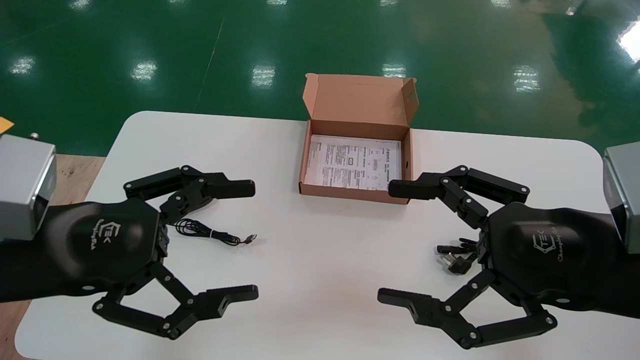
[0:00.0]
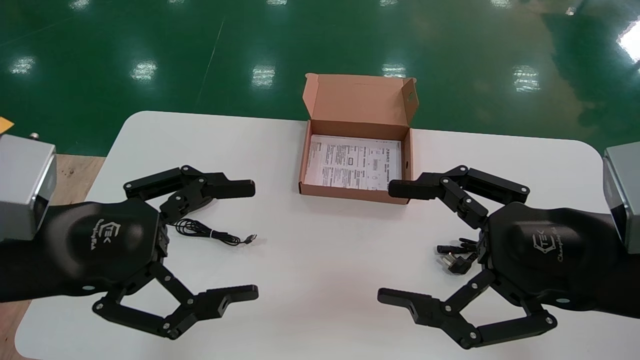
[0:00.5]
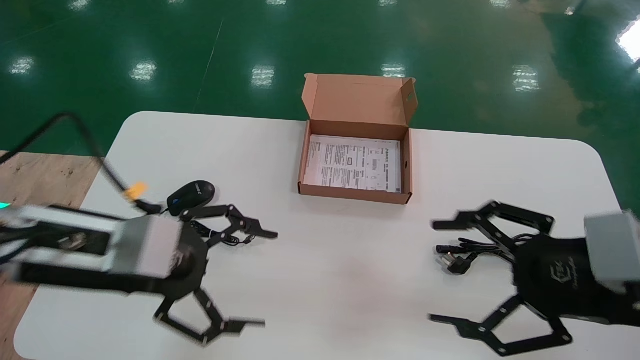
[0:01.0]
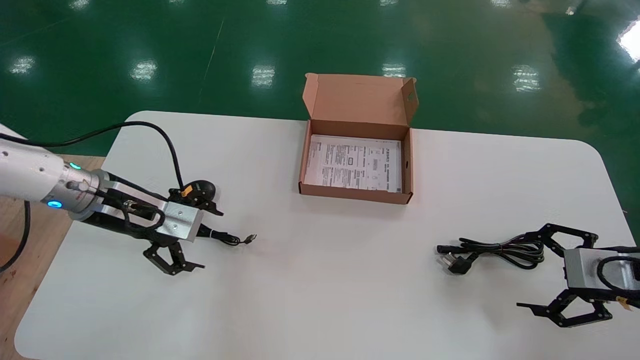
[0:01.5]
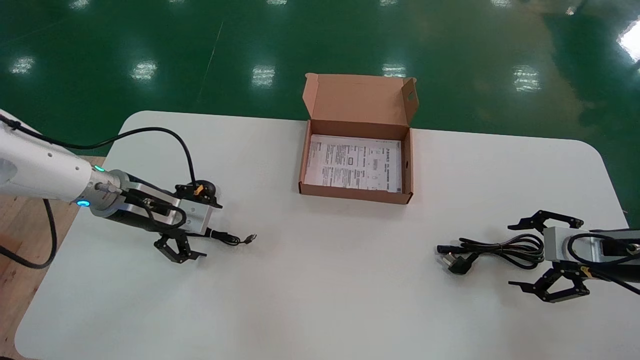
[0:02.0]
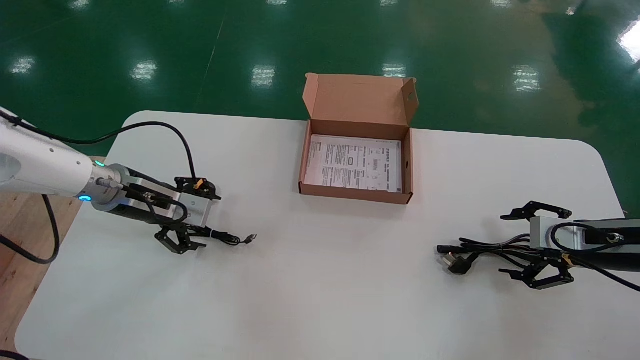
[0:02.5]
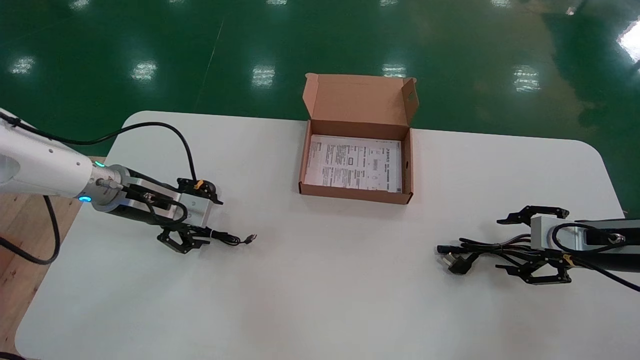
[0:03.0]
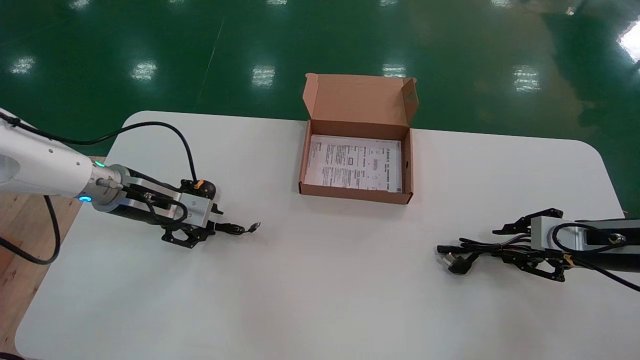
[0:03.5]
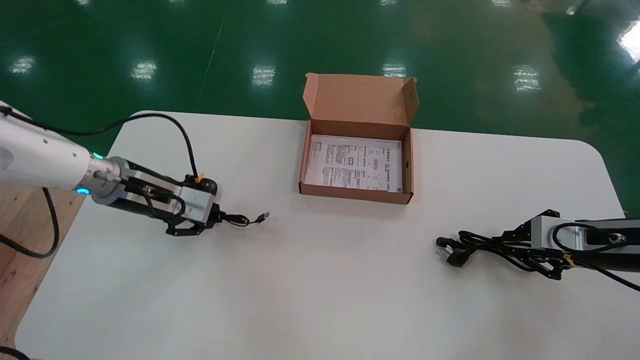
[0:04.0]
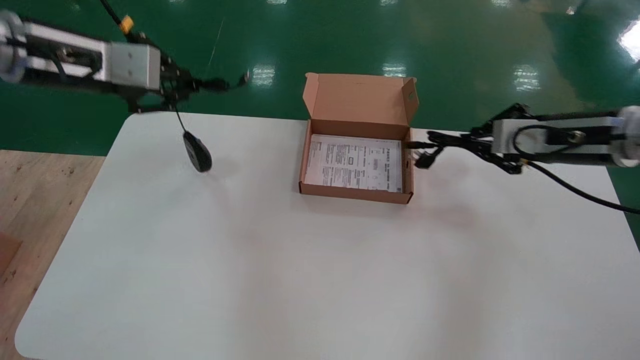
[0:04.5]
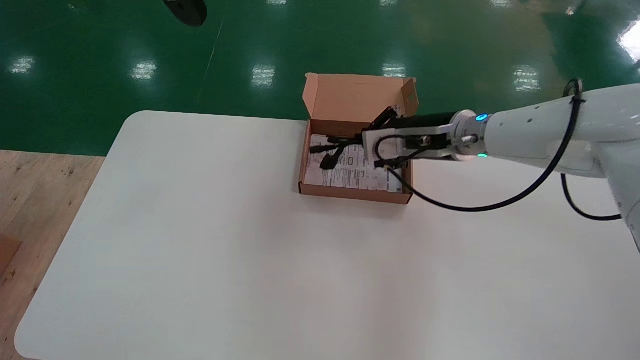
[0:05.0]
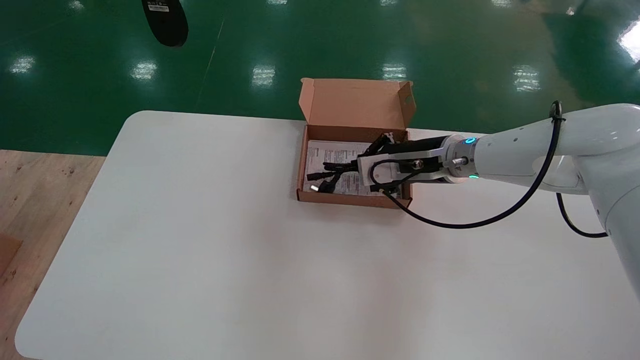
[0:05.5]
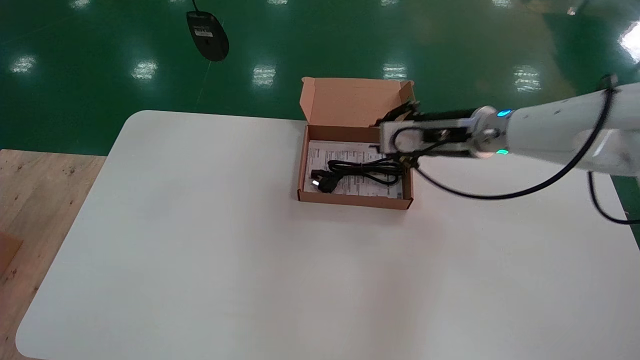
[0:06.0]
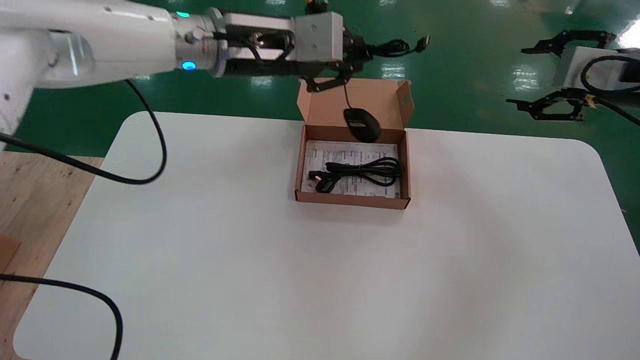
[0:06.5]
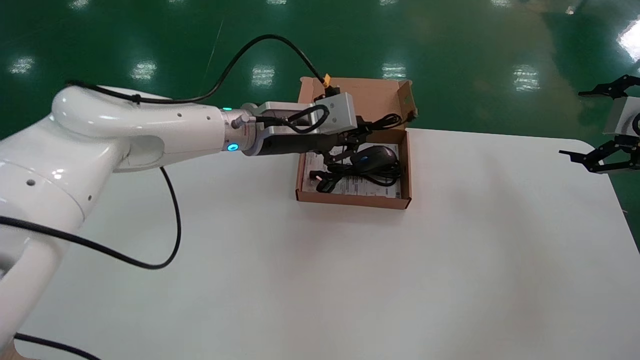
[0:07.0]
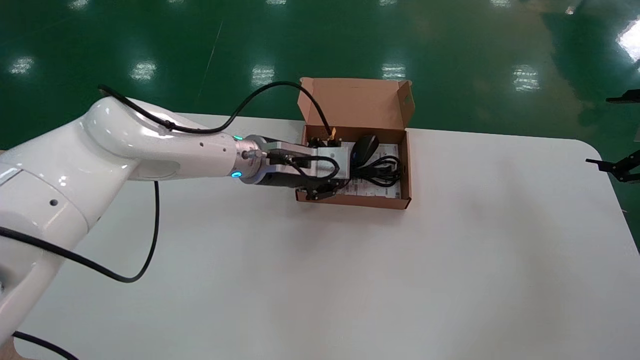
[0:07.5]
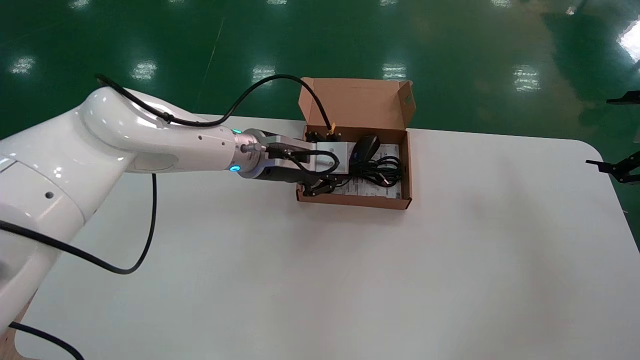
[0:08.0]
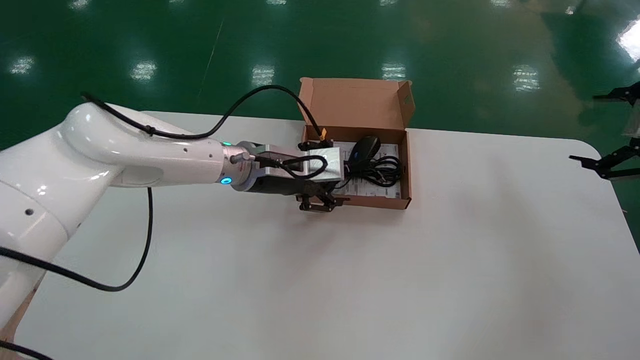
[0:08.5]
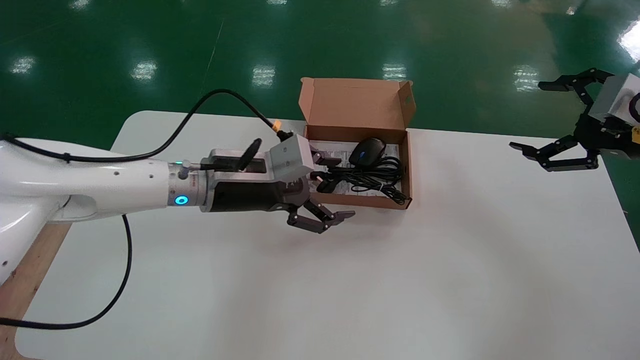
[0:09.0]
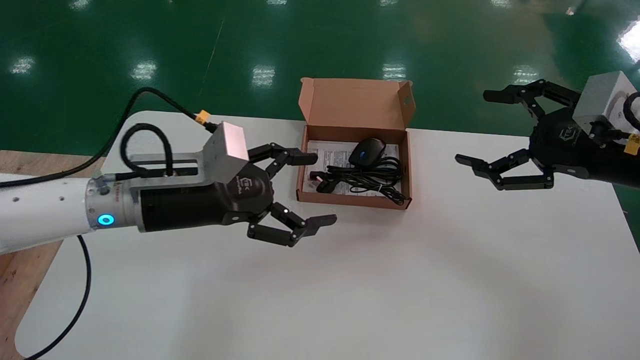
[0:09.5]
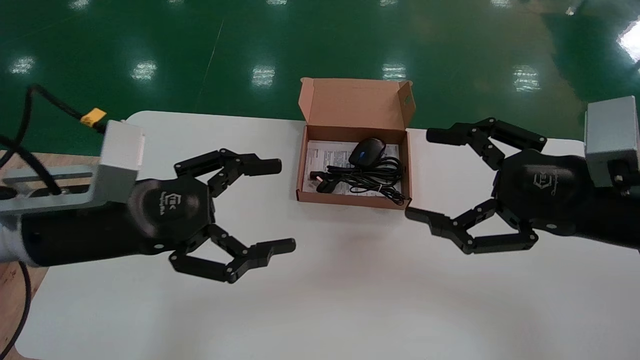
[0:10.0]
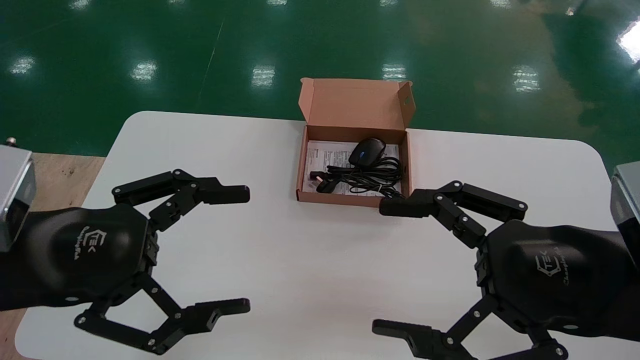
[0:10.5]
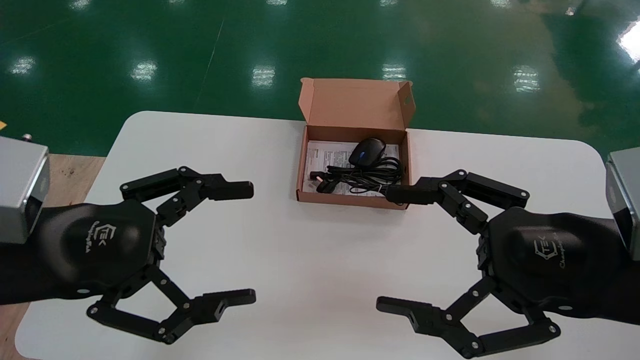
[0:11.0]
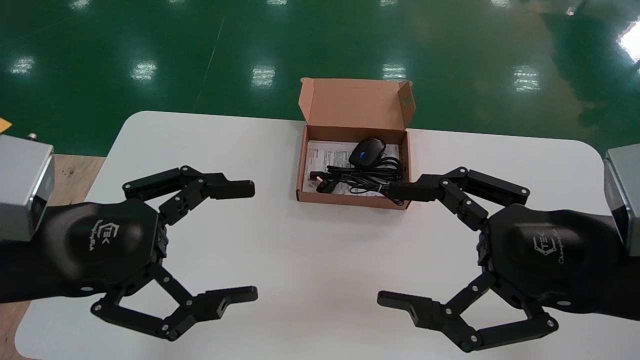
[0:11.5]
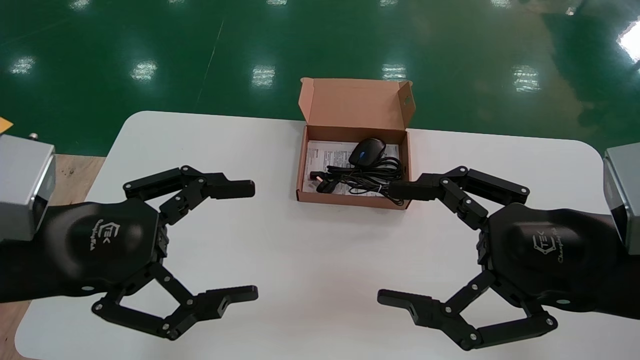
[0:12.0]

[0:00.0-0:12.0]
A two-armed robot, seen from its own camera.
Step, 1.5 to 4.0 s: Simultaneously pick up the mouse and power cord from the accessory packaging area.
Step, 4.5 to 8.5 s: Place the mouse and power cord into the box.
0.0 to 2.0 s: The right gripper moves to the right, forward and downward, about 25 cm. Meanwhile the left gripper moves forward, roughly 20 cm.
2.0 to 4.0 s: The right gripper closes its fingers, while the left gripper closes up.
4.0 to 6.0 s: The right gripper goes about 25 cm to the left, upward and forward. The left gripper moves upward, about 25 cm.
6.0 to 8.0 s: The left gripper moves downward, to the right and forward, about 35 cm; the right gripper goes about 30 cm to the right and backward, and opens its fingers.
8.0 to 10.0 s: The left gripper is displaced backward and to the left by about 25 cm, and opens. The right gripper shifts approximately 20 cm to the left and backward.
10.0 to 12.0 s: The grippers both shift backward by roughly 5 cm.

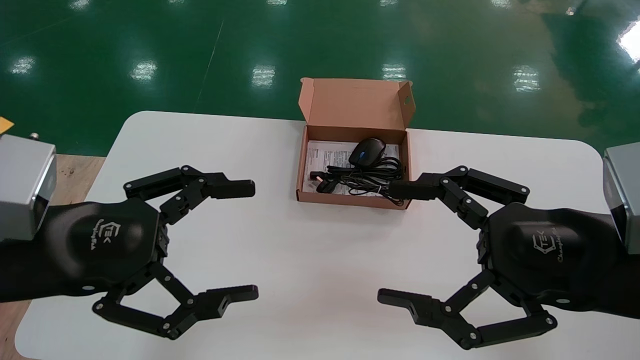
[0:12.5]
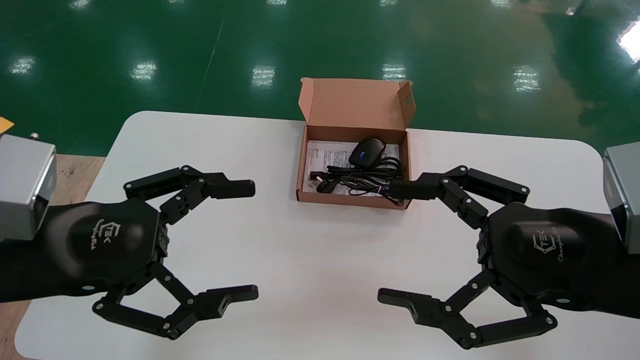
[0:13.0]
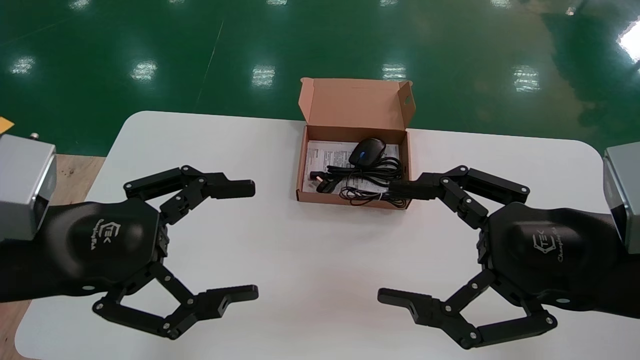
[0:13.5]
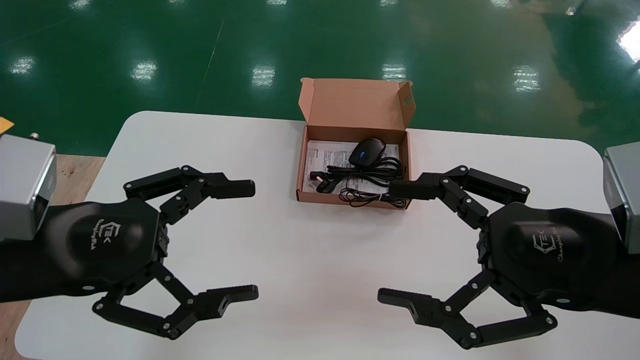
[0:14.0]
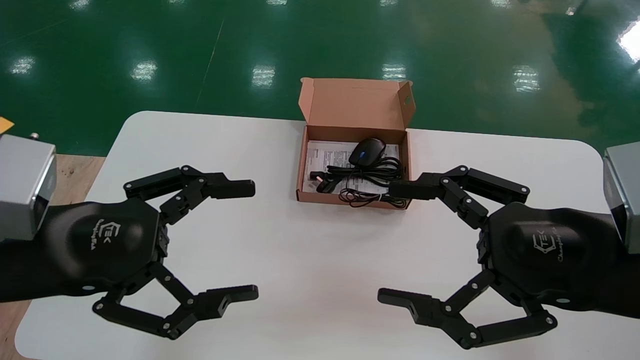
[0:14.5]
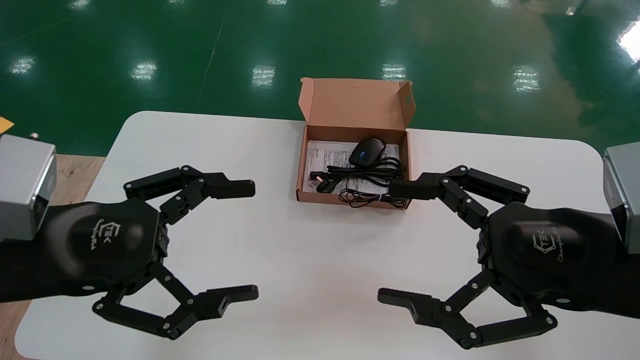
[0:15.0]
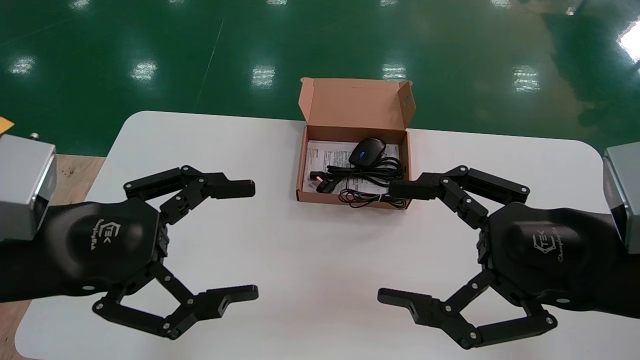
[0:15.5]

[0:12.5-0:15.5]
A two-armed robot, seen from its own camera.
12.5 to 15.5 s: Both grippers stay put.

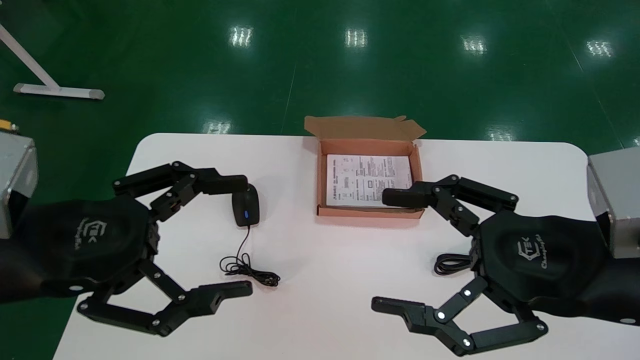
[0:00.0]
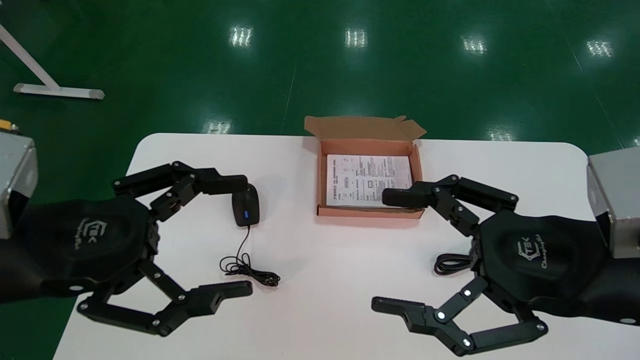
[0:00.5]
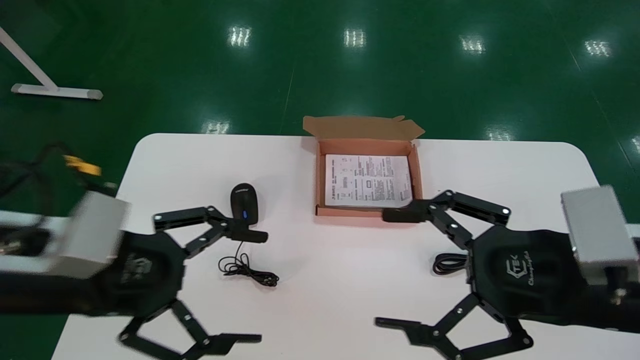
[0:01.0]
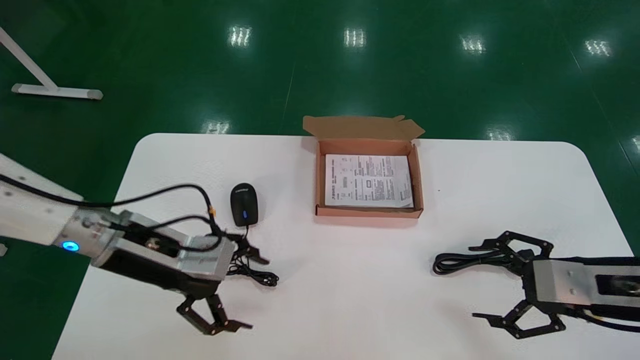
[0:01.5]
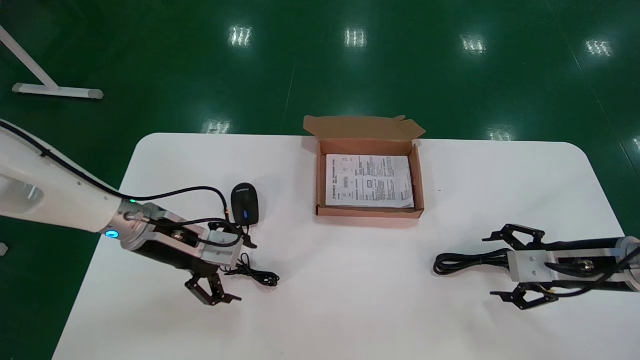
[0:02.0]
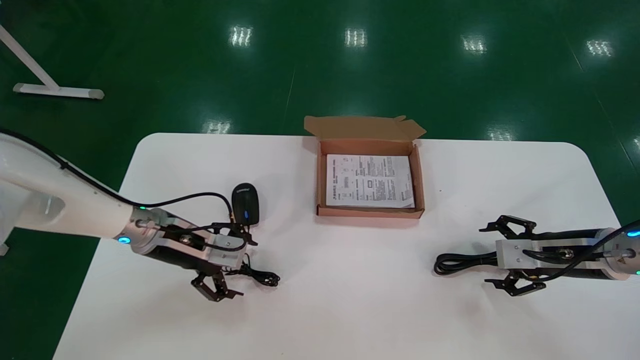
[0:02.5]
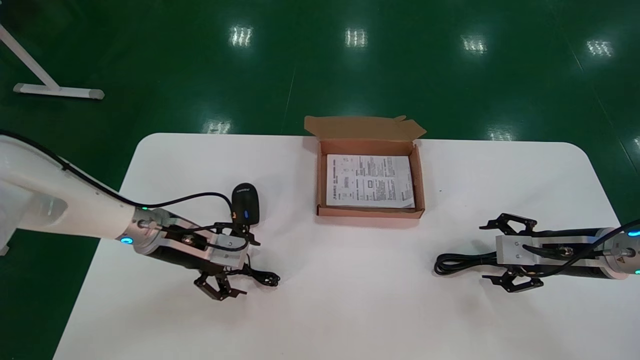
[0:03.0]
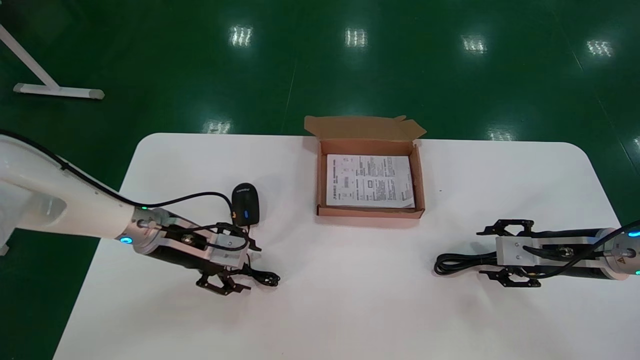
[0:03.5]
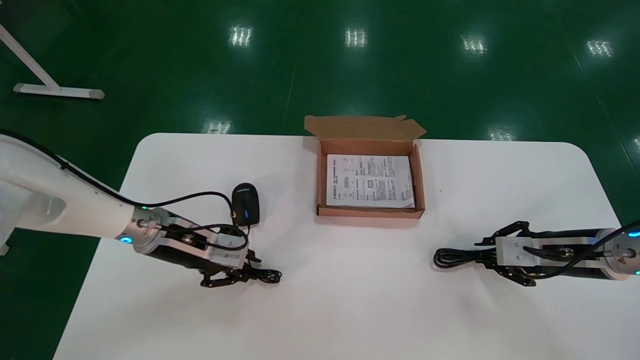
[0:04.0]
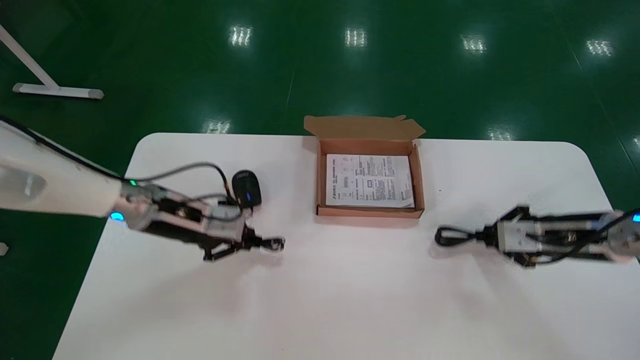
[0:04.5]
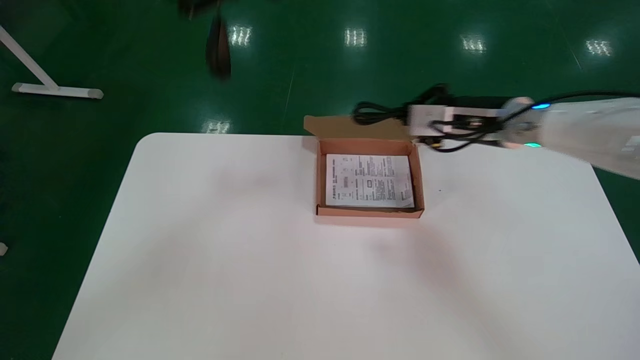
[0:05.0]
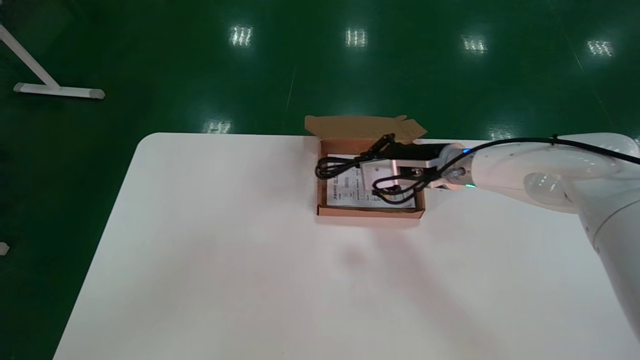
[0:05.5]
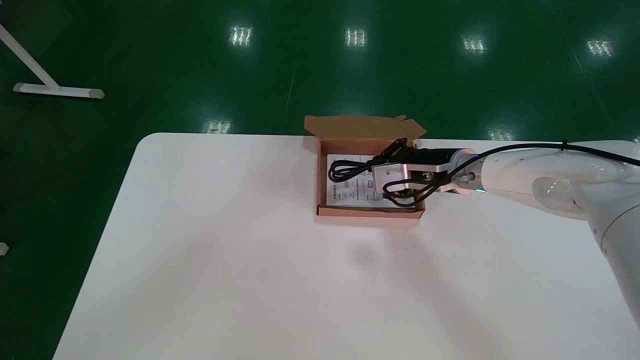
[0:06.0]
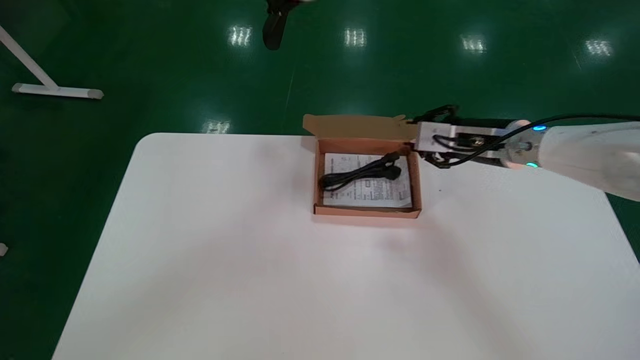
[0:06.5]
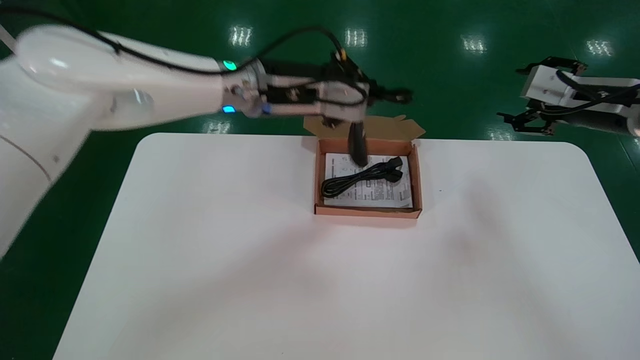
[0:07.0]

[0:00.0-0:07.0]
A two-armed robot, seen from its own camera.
Step, 1.0 to 4.5 s: Simultaneously pick up the mouse and power cord from the accessory packaging area.
0.0 to 2.0 s: The right gripper is displaced forward, to the right and downward by approximately 25 cm; the left gripper travels forward and downward by about 25 cm.
2.0 to 3.5 s: The grippers move only a little.
3.5 to 5.0 s: The left gripper goes some 35 cm upward, and closes its fingers. The right gripper is displaced upward, to the left and forward by approximately 20 cm, and closes up.
5.0 to 7.0 s: The right gripper is displaced to the right and upward by approximately 15 cm, and opens up. The left gripper moves to the right and downward, approximately 20 cm.
